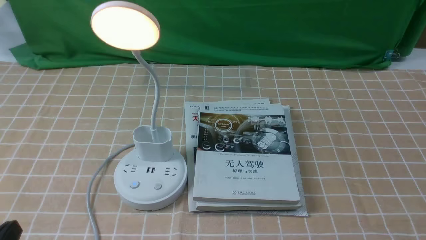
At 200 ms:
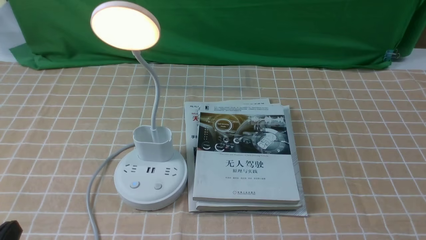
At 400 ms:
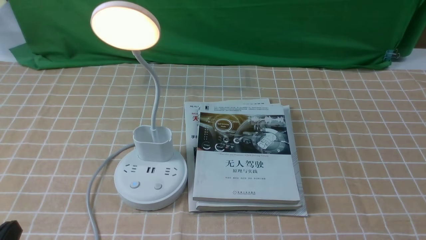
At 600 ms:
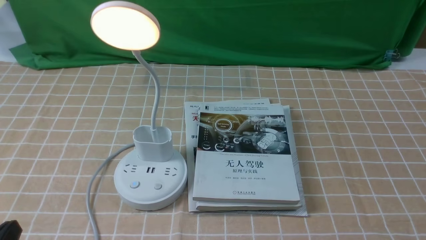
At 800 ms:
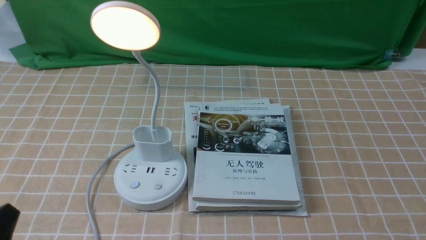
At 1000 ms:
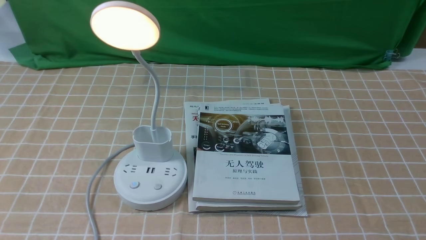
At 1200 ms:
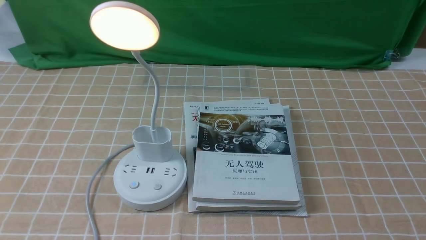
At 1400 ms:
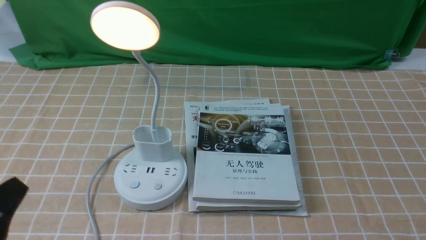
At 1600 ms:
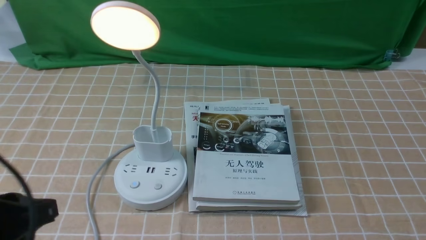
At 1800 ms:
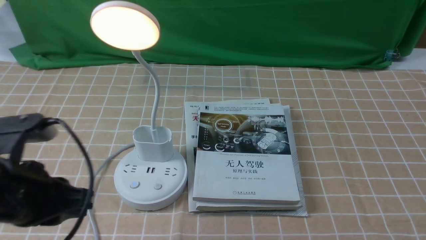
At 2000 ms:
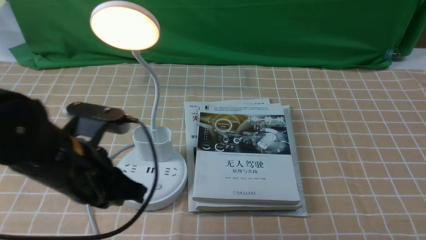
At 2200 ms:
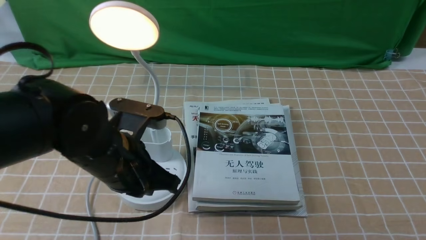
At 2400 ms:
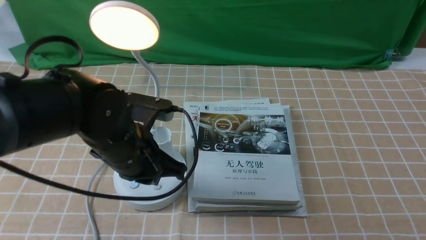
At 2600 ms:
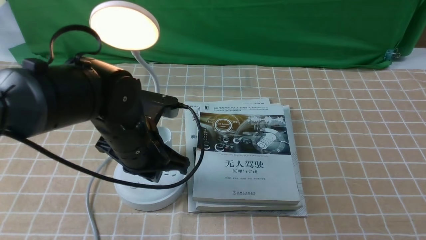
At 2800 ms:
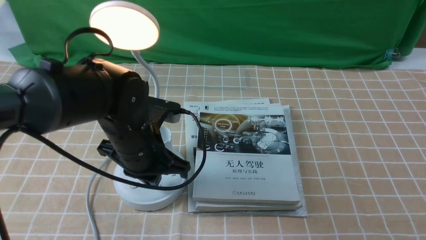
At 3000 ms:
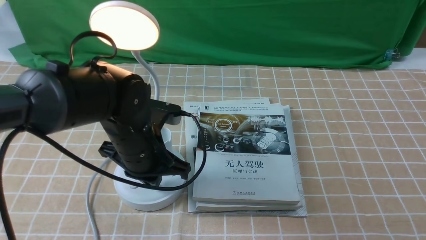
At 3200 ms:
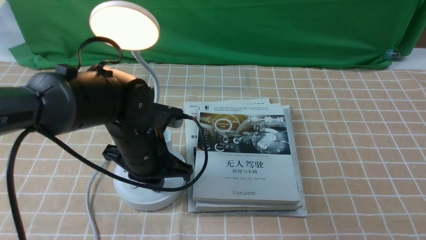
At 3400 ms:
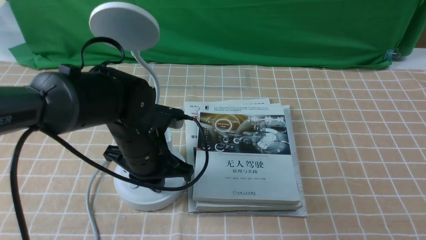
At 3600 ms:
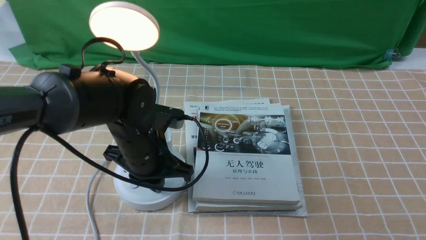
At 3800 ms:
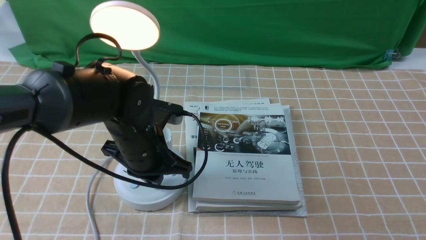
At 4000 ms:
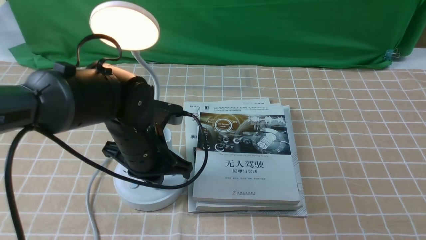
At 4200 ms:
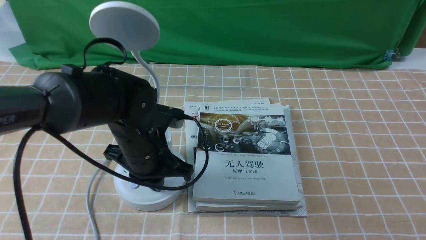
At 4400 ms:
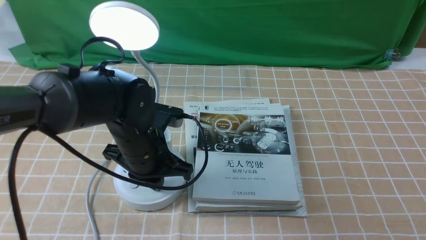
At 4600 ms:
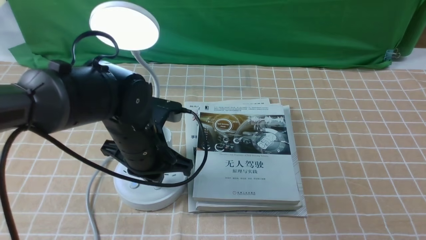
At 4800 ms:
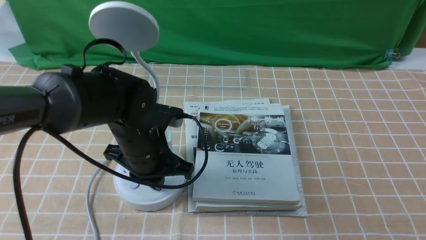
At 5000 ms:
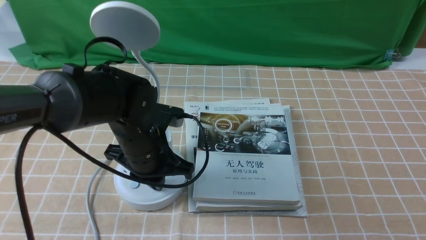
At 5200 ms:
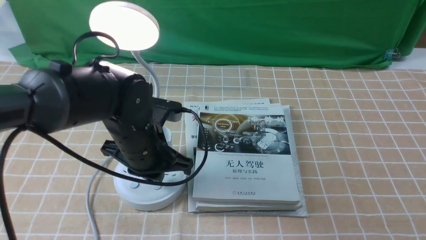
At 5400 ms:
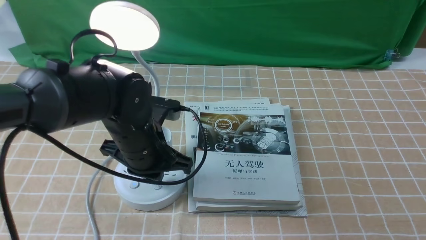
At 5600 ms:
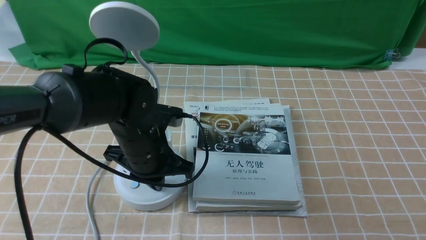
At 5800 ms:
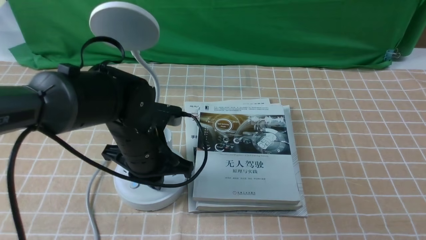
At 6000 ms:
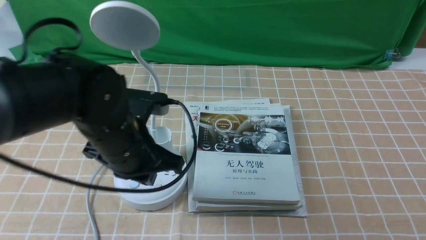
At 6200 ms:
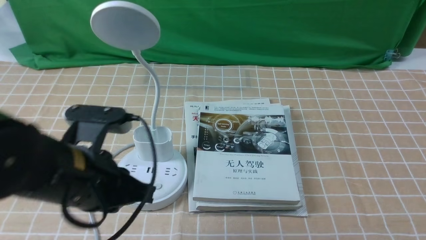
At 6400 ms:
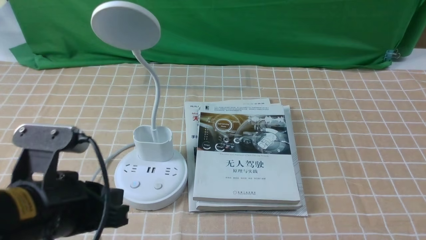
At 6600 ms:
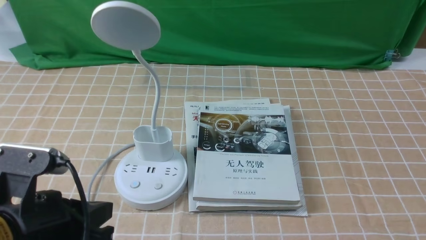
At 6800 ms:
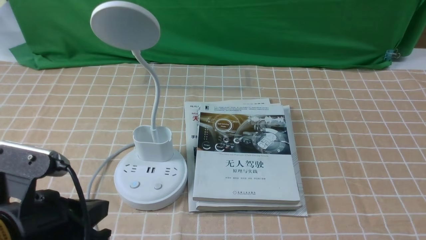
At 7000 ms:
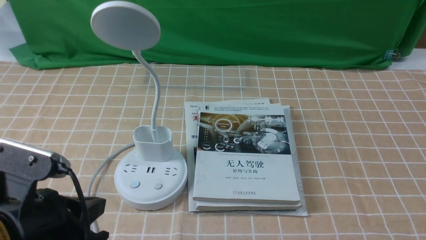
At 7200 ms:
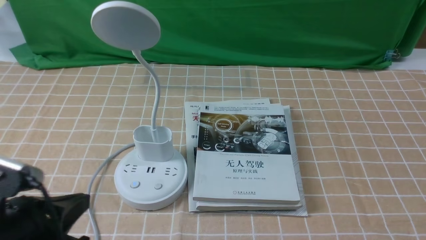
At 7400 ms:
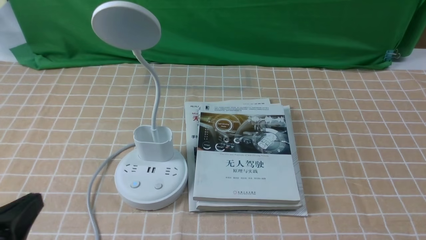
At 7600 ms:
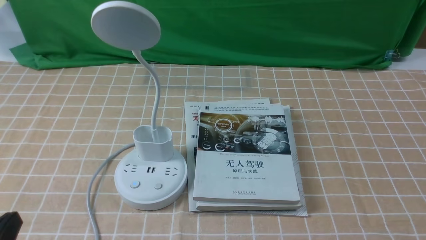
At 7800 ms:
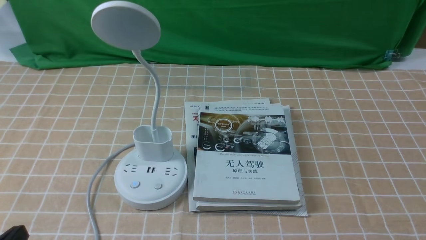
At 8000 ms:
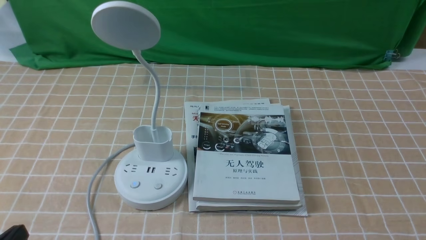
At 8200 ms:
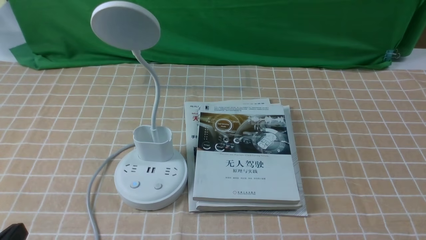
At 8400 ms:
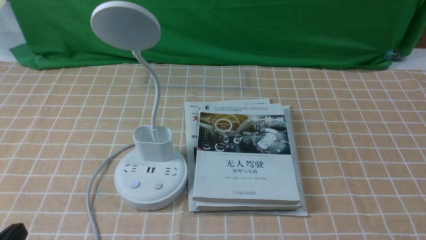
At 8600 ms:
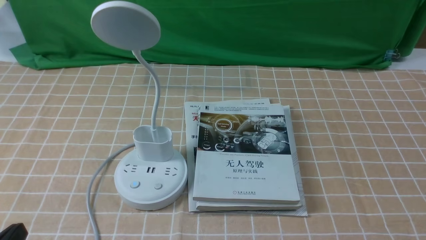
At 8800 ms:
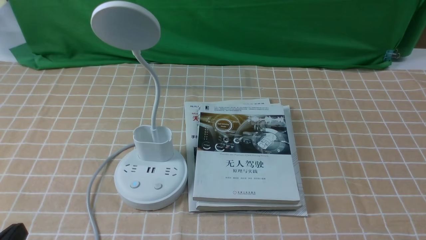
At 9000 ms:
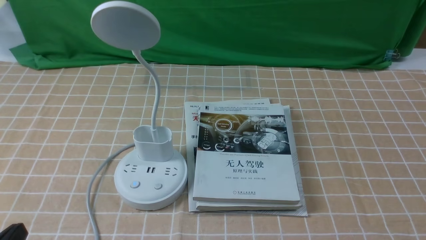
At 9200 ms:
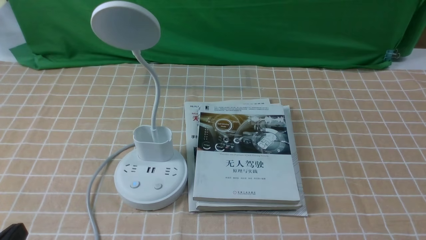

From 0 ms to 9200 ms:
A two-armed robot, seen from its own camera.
Task of the whole recording: turn off the desk lamp on the light coffee tablecloth by hand.
Step, from 0 ms to 5800 ms: use the left arm to press the button switch on the lamp holder.
From 0 ms to 1600 ms: The left gripper heads upward and forward, covering some 10 cm.
From 1600 ms to 3000 ms: The left gripper moves forward, to the right and downward, some 25 cm, and closes up.
From 3000 ms to 4600 ms: Both grippers stay about where they are.
From 4600 ms to 6200 ms: The left gripper heads backward and upward, covering about 10 cm.
From 6200 ms to 7600 ms: The left gripper shifts roughly 20 cm backward, to the left and downward.
